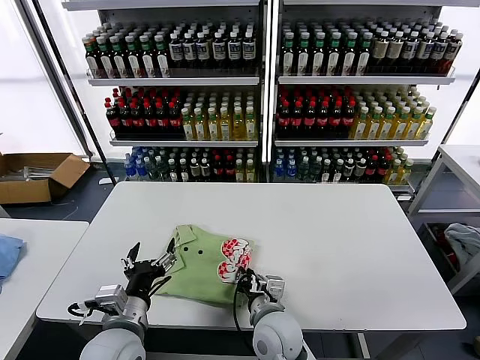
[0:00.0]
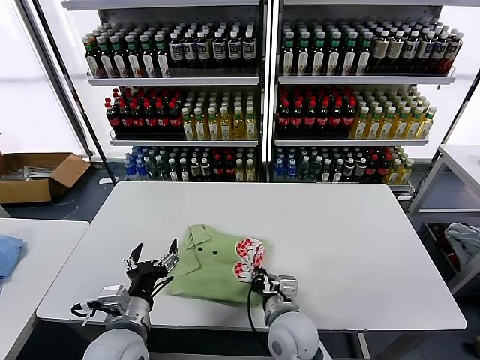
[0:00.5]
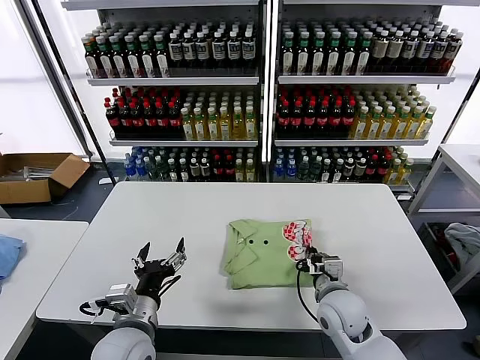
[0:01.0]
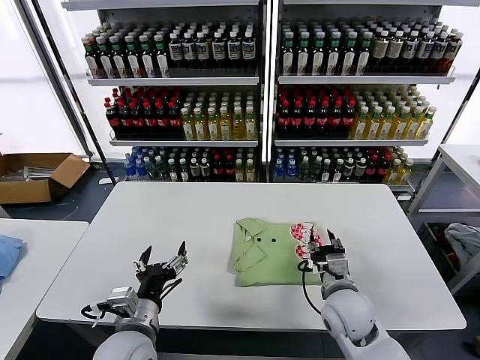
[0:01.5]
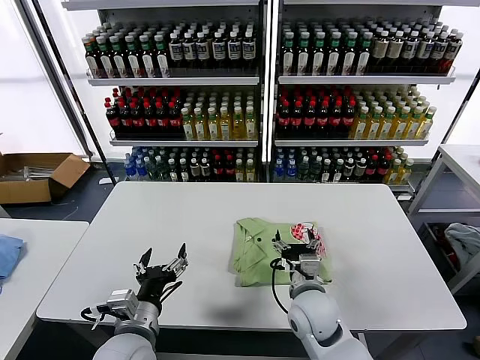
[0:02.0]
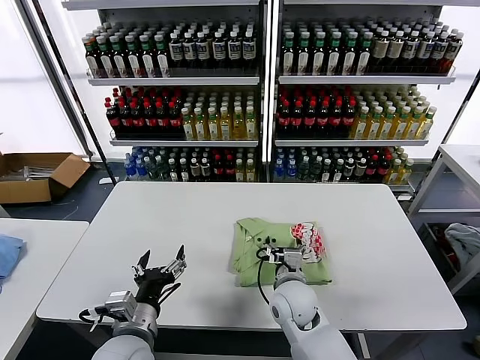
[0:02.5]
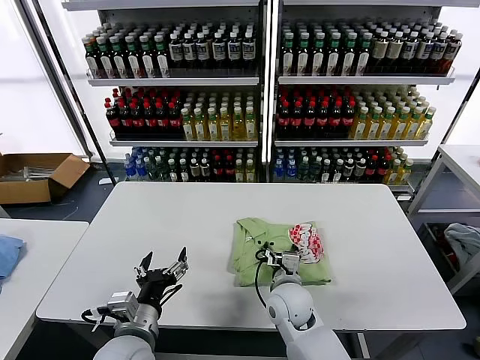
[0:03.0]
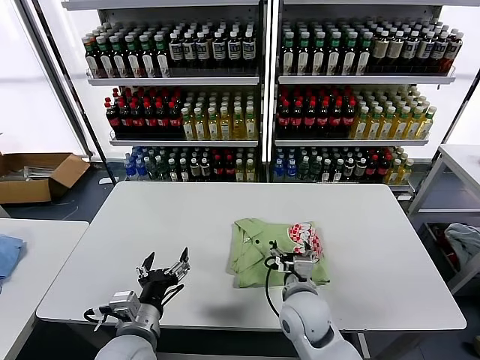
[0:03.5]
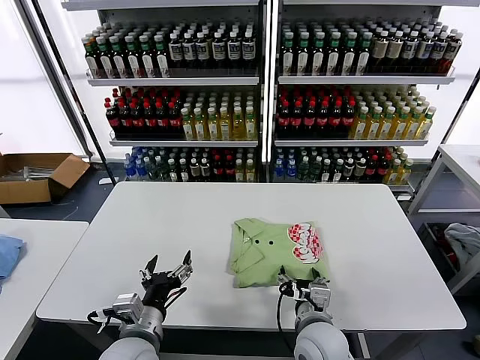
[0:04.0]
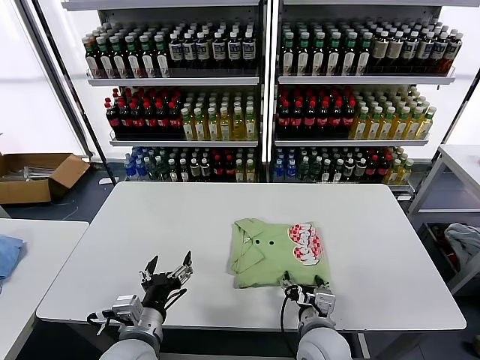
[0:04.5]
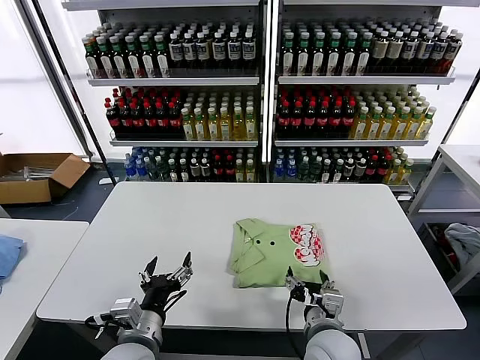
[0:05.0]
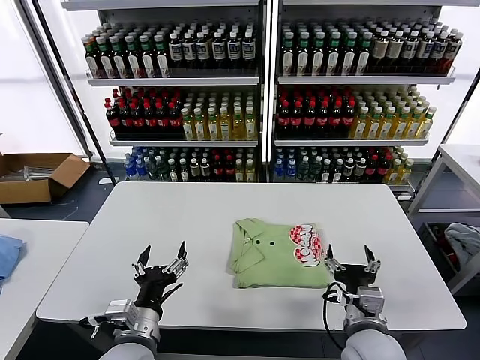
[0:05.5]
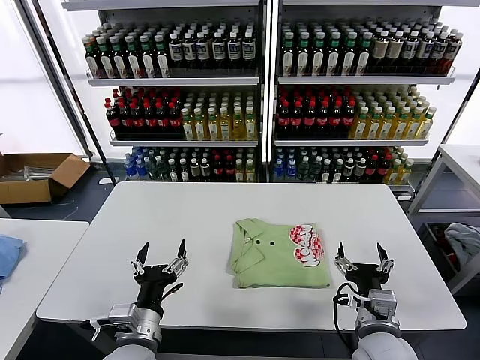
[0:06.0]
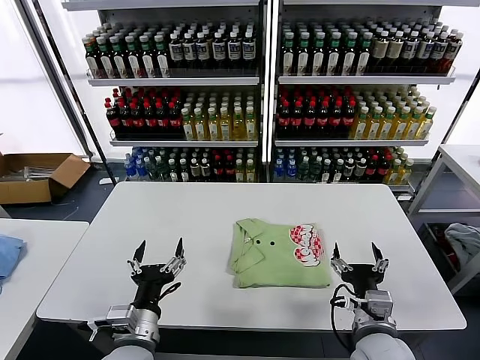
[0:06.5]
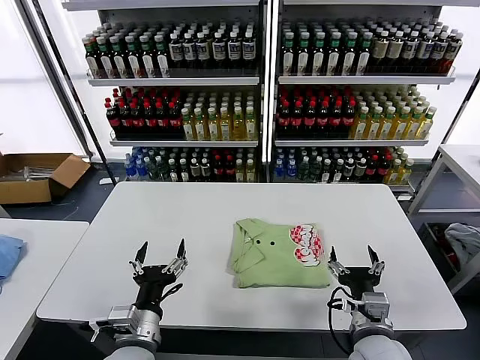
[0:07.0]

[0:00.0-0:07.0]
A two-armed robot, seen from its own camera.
Task of the whole recording: fold and organize the clothes.
Step, 0:00.0 to 0:05.0: Drag the clothes to the center of the table.
0:00.0 to 0:02.0: The right gripper is displaced to the right by roughly 10 cm, and opens.
0:03.5 to 0:05.0: The right gripper shifts about 10 cm backward.
0:05.0 to 0:07.0: The right gripper goes approximately 10 cm to the right.
